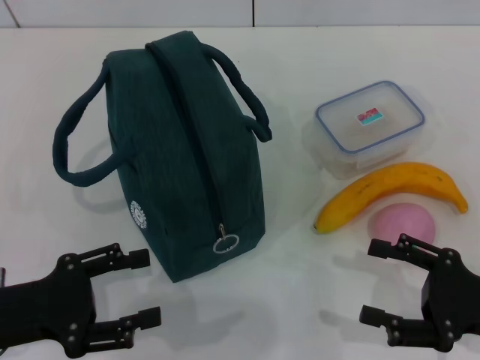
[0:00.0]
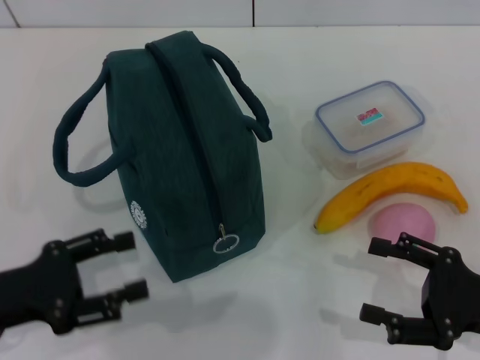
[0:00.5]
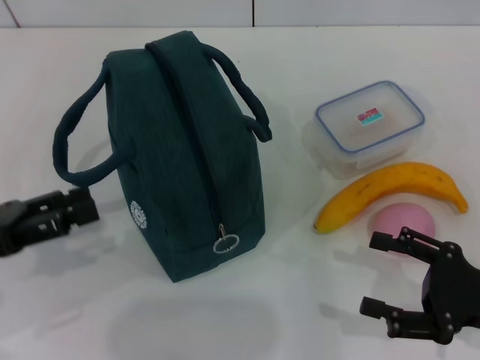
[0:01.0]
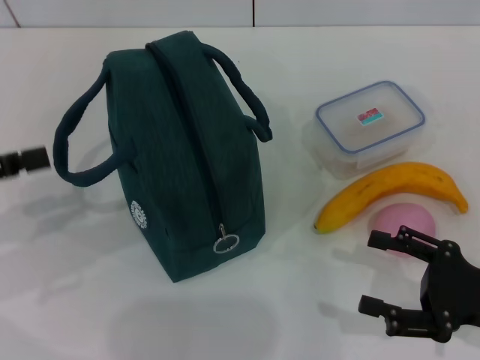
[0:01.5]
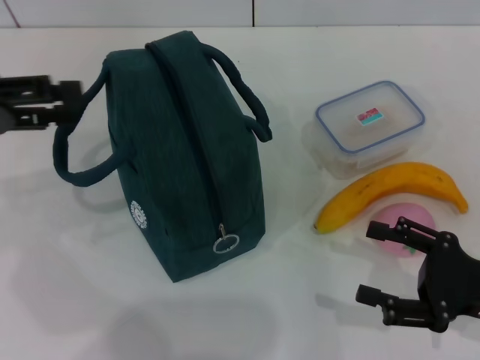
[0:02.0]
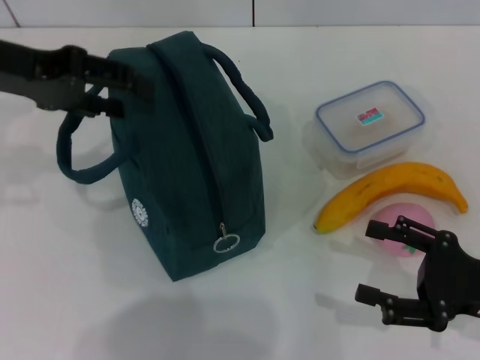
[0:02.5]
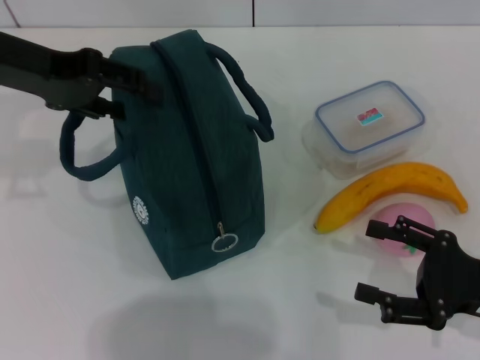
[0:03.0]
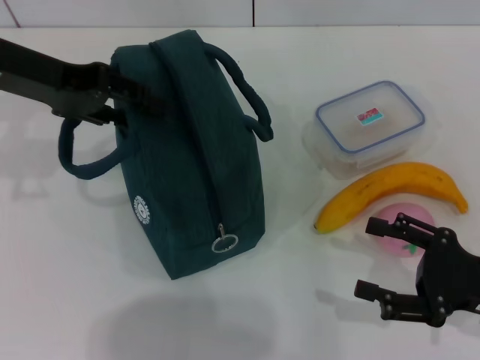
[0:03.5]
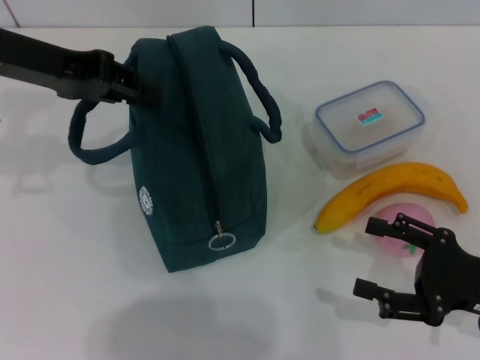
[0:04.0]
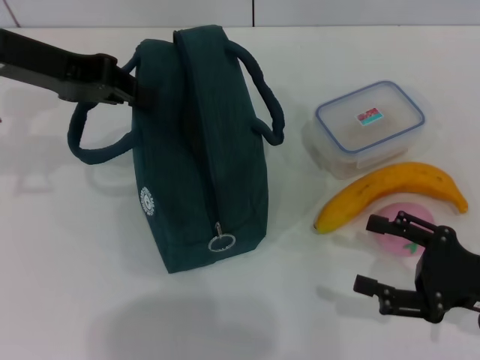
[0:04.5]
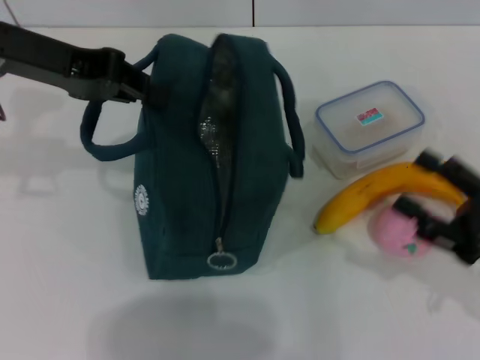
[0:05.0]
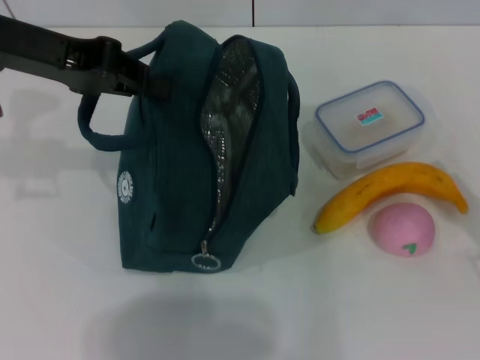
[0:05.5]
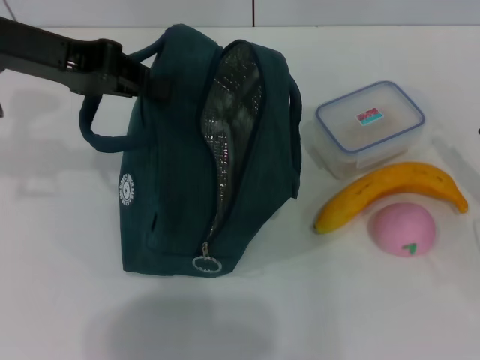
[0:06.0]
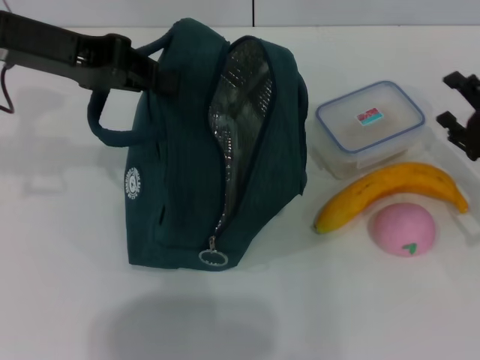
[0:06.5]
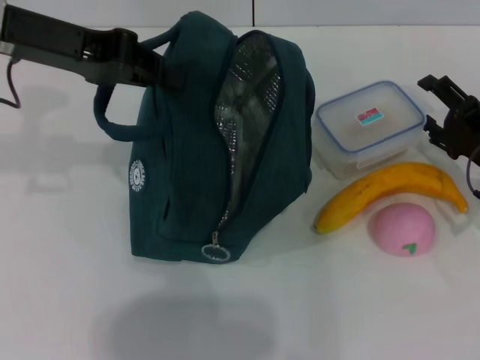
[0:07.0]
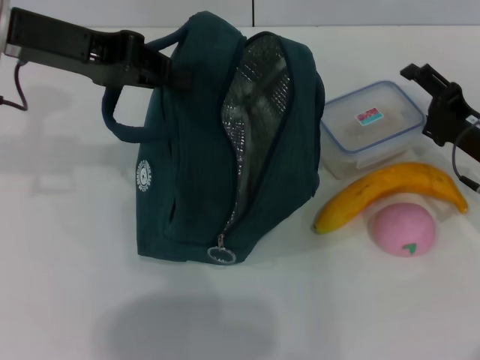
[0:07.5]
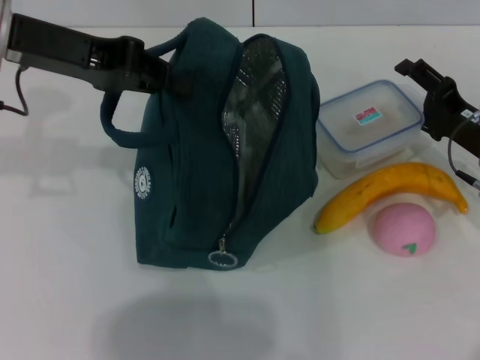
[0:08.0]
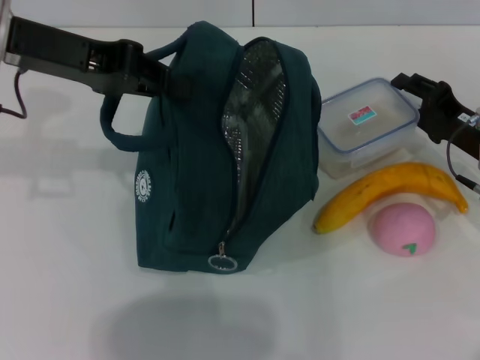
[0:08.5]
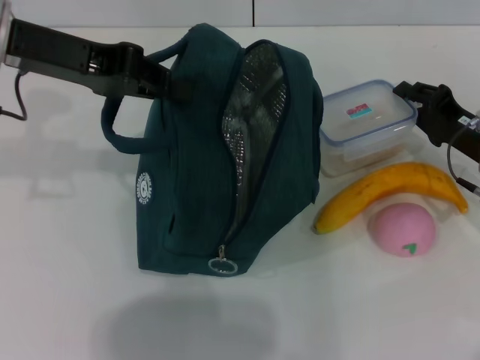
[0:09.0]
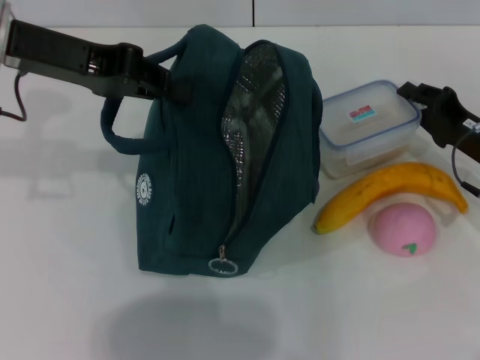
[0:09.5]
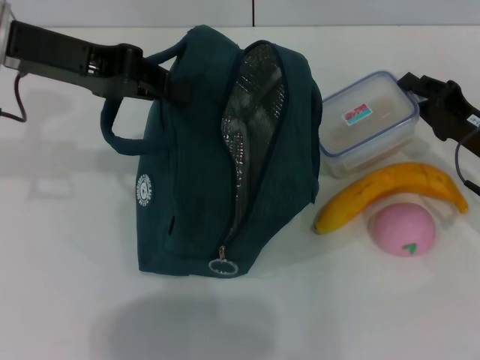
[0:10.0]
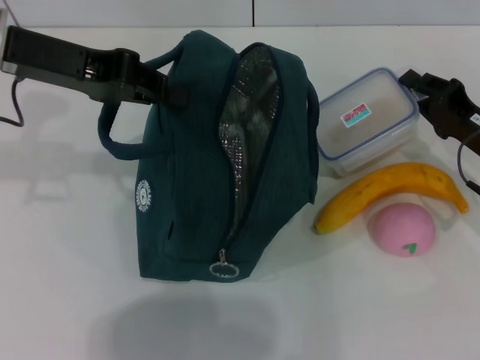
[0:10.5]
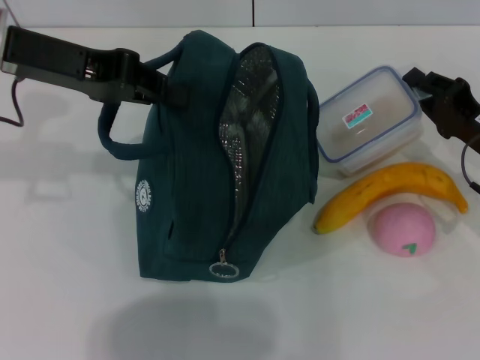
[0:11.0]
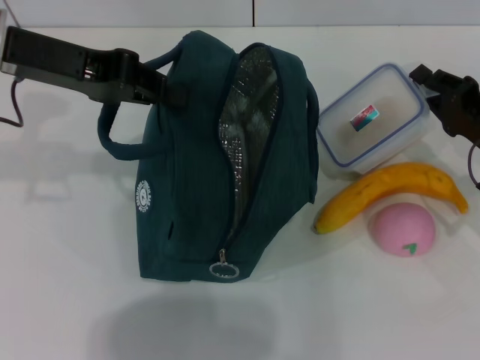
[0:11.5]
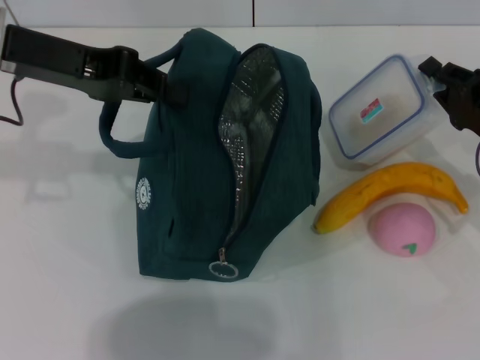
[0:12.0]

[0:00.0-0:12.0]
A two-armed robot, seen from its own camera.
Step, 0:00.0 to 0:04.5: Hold the lunch bag with your left hand.
Step, 0:05.0 to 0:09.0: Pick up the lunch box with your right hand.
0:00.0 to 0:02.0: The left gripper shifts about 20 cm upward and forward.
0:02.0 to 0:04.0: The left gripper moves to the right and forward, approximately 10 cm, and closes up.
0:04.0 to 0:06.0: The left gripper closes up. The right gripper changes place by roughly 5 cm.
0:06.0 to 0:08.0: The right gripper shifts some 10 cm forward and to the left.
0:08.0 to 0:10.0: The right gripper closes up.
0:10.0 to 0:12.0: The grippers move only a little.

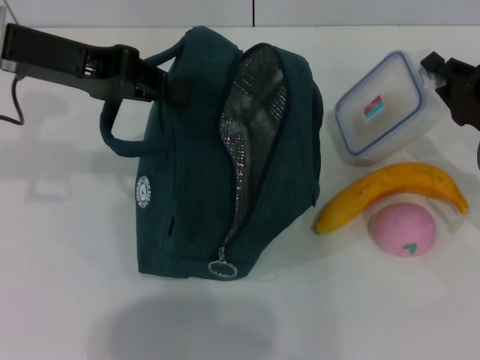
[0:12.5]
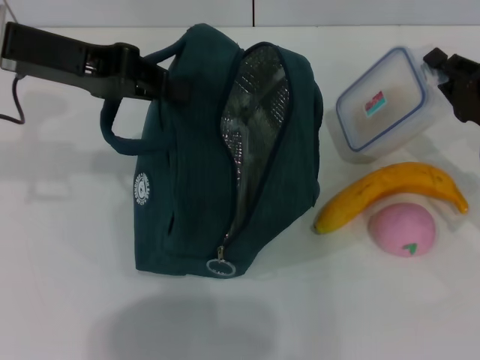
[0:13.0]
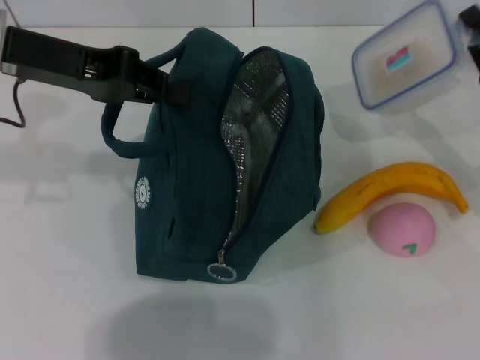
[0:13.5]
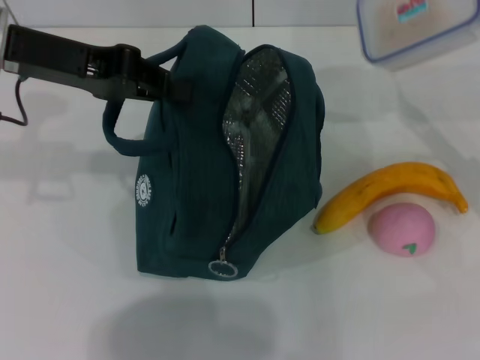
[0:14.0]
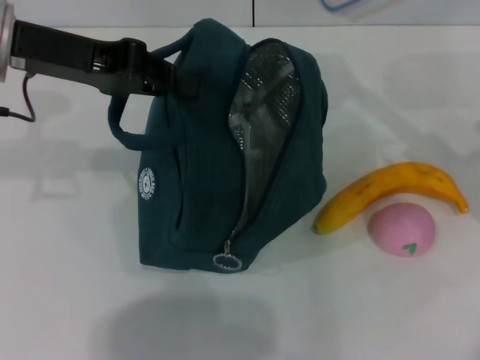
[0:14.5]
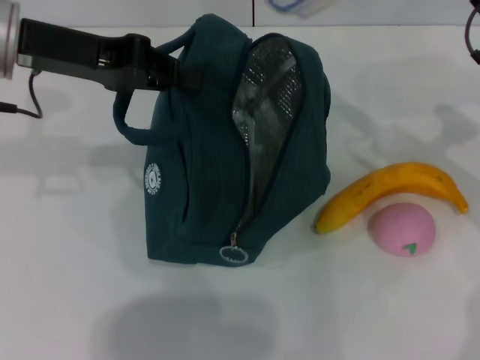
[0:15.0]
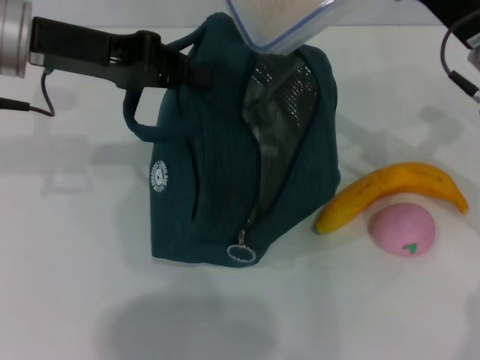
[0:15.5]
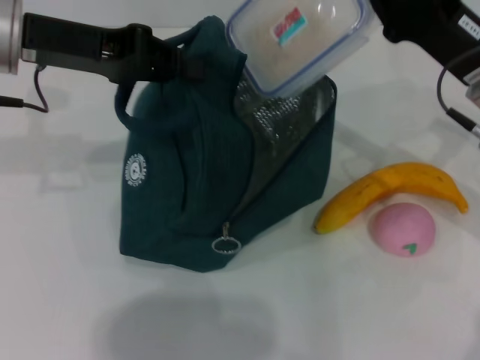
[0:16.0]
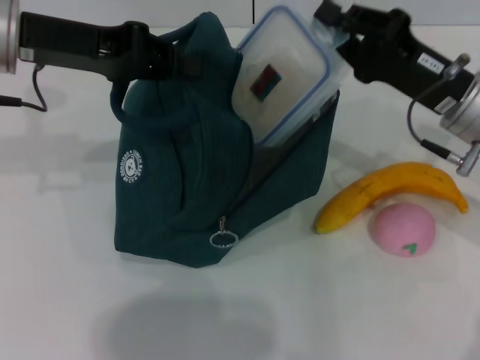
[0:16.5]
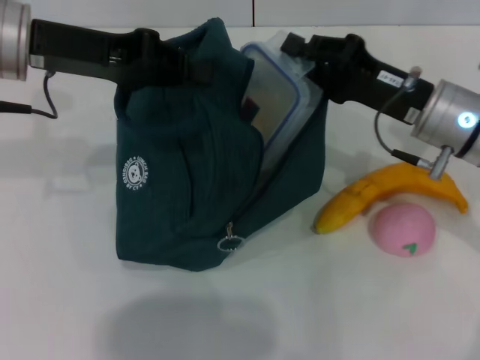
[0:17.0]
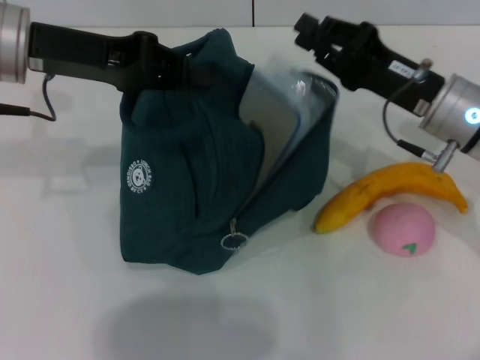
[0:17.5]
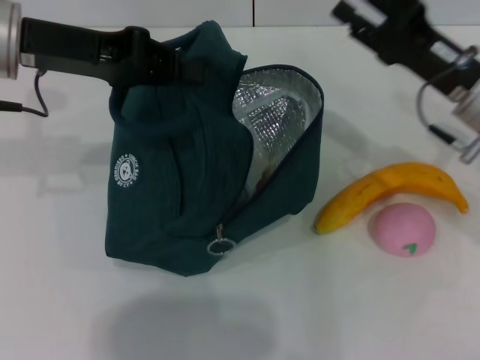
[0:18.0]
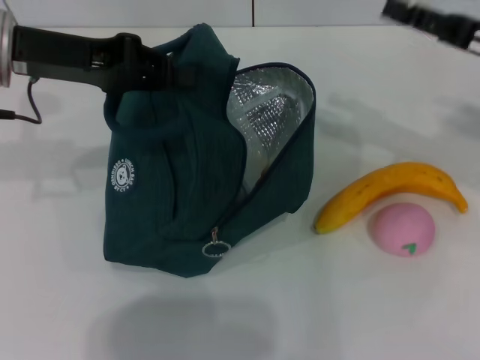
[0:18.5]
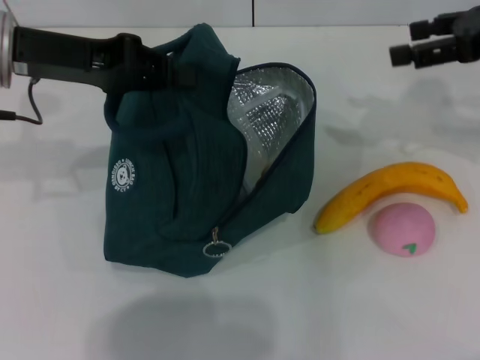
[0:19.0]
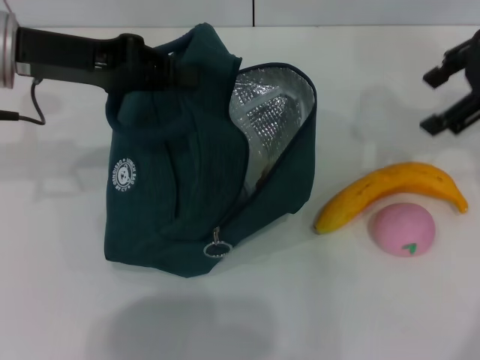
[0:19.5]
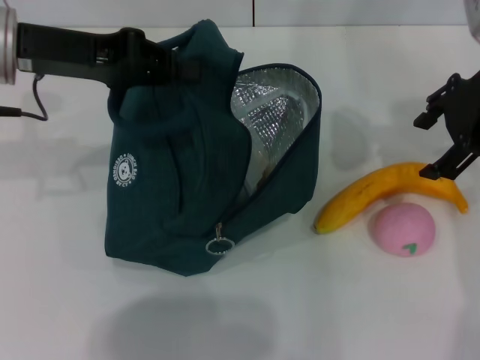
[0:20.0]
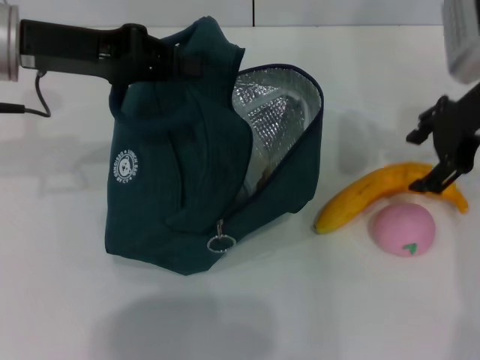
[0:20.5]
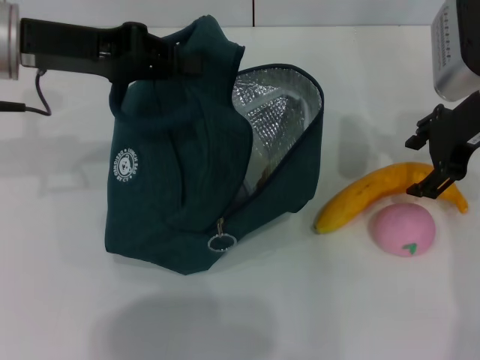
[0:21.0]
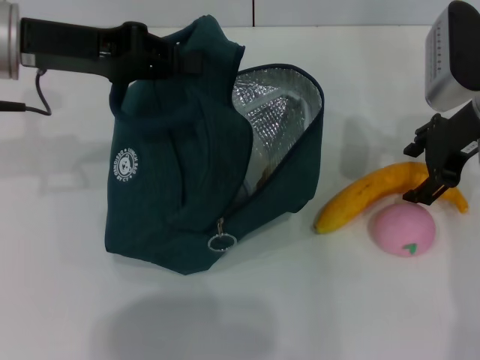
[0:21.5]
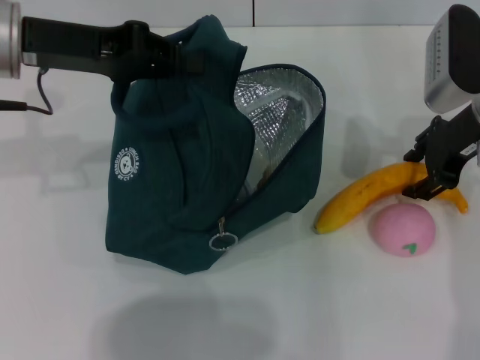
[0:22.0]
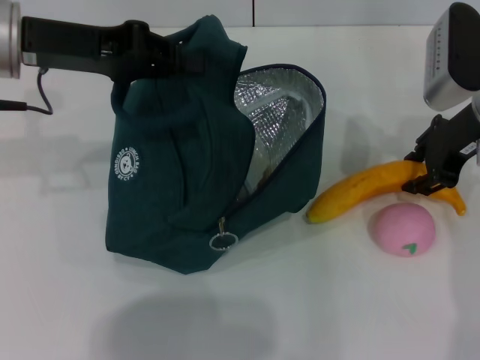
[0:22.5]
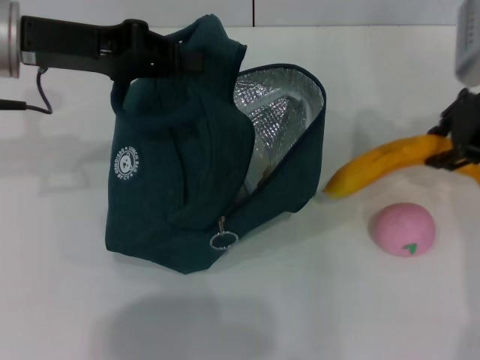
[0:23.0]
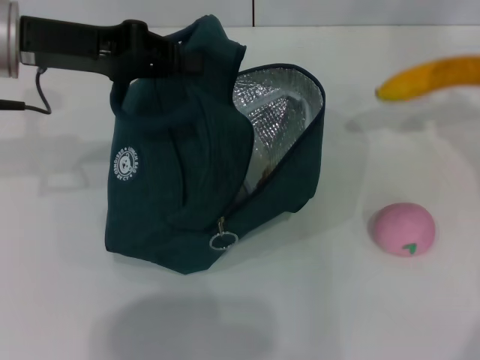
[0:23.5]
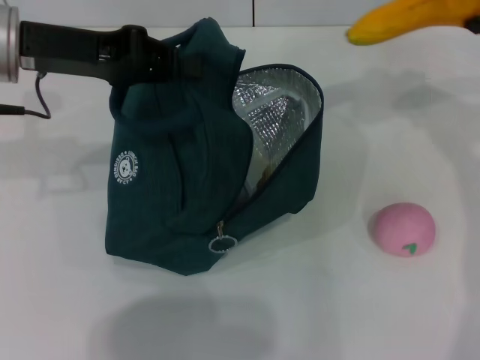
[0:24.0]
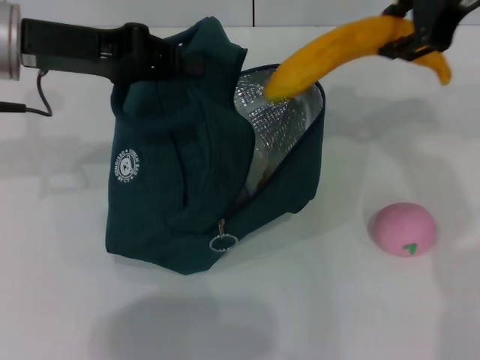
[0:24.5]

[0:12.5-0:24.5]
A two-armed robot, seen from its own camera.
Step, 0:12.5 to 0:17.5: Place the lunch box into the lunch bag with your right hand.
Step, 0:18.0 to 0:22.0: Take the banana with your right hand.
0:12.5 to 0:14.5: The right gripper heads upward, covering some 10 cm.
0:14.5 to 0:16.5: The right gripper moves to the left, approximately 5 cm.
0:16.5 to 0:18.5: The right gripper goes roughly 10 cm to the right, and opens its fingers.
0:18.5 to 0:20.5: The right gripper is displaced to the left by about 5 cm, and goes upward and returns, some 10 cm each way.
0:20.5 to 0:22.5: The right gripper closes up.
0:22.5 to 0:24.5: The right gripper is displaced upward by approximately 15 cm.

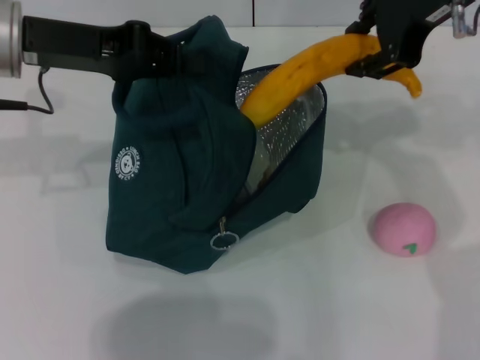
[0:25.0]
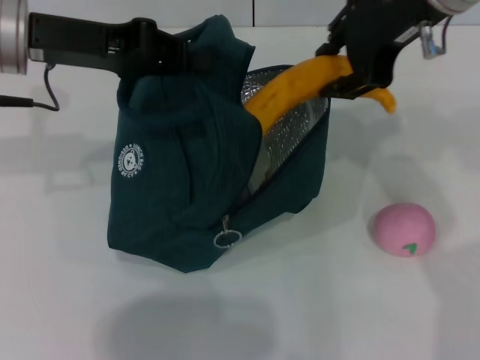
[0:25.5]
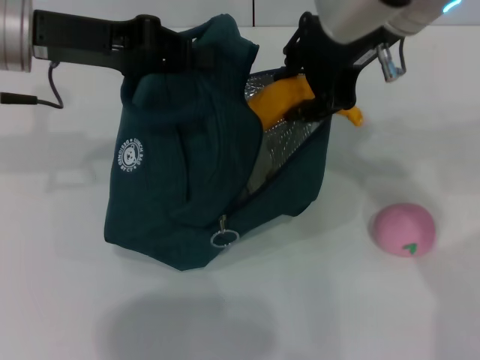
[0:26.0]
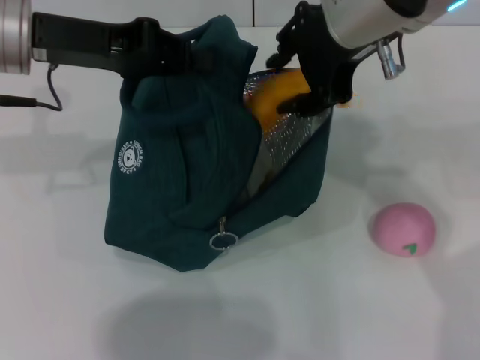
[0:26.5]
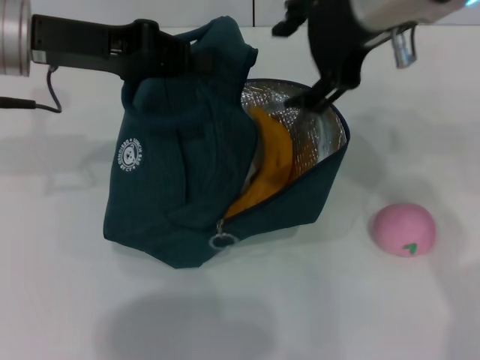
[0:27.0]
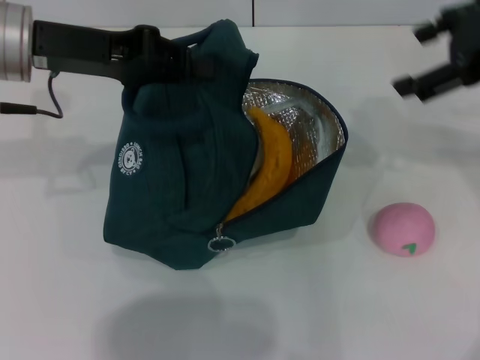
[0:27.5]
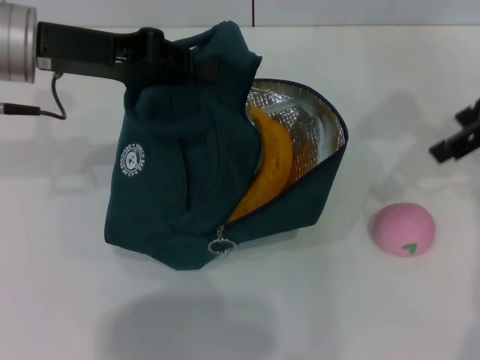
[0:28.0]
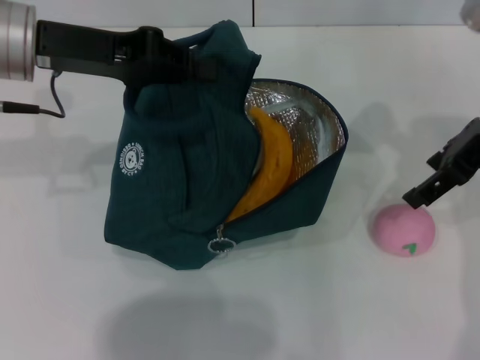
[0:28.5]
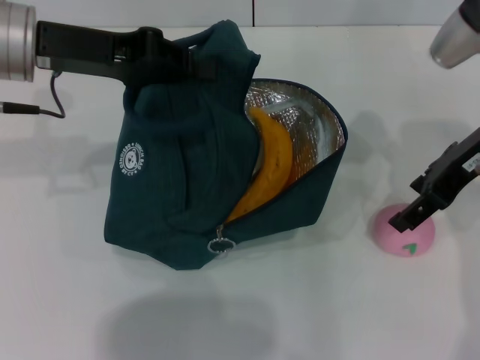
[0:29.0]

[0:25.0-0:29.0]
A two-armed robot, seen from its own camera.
0:25.0 to 0:27.0: The right gripper shifts by some 5 cm, and opens its fingers.
0:27.0 to 0:29.0: The right gripper shifts some 15 cm downward and to the right.
